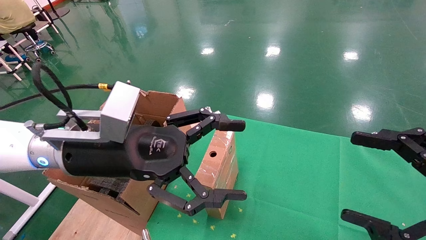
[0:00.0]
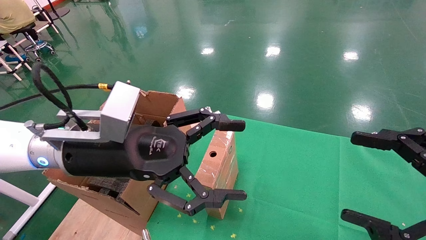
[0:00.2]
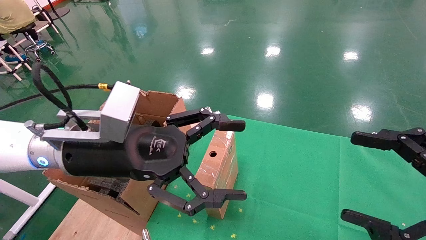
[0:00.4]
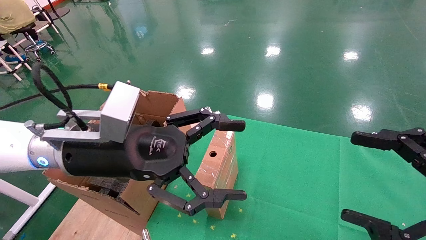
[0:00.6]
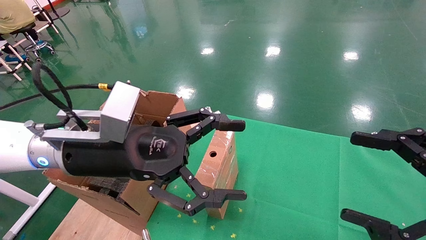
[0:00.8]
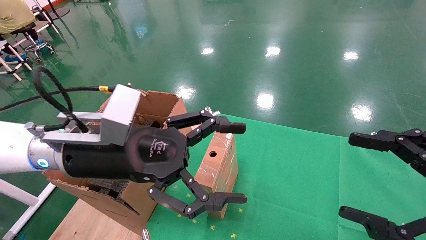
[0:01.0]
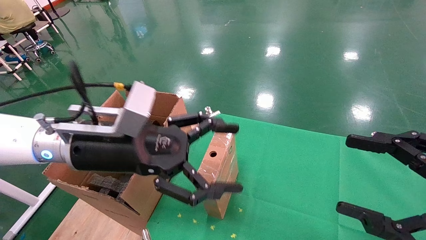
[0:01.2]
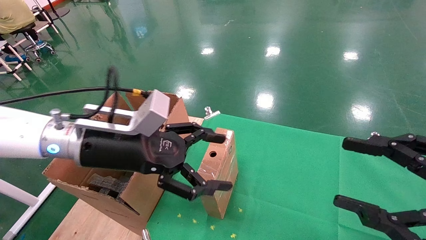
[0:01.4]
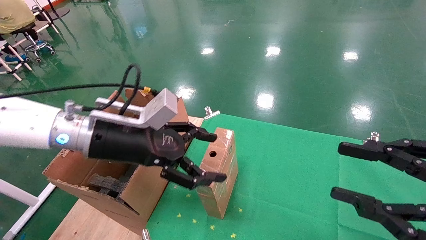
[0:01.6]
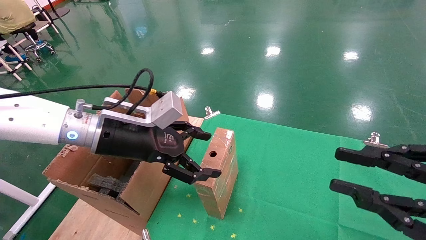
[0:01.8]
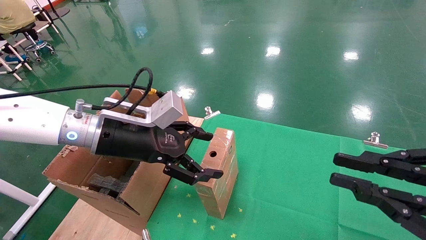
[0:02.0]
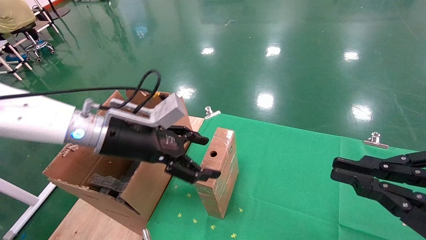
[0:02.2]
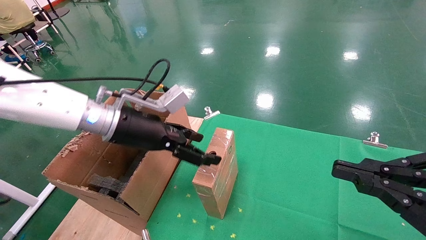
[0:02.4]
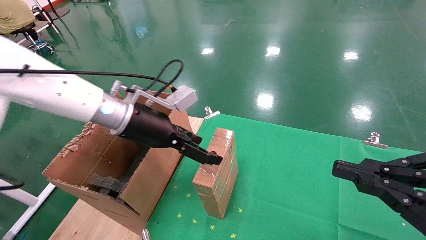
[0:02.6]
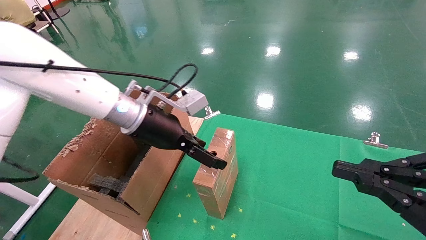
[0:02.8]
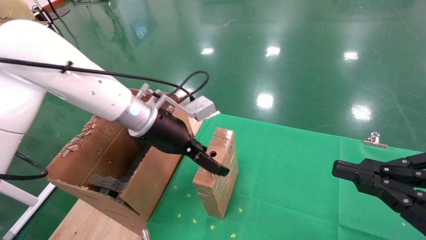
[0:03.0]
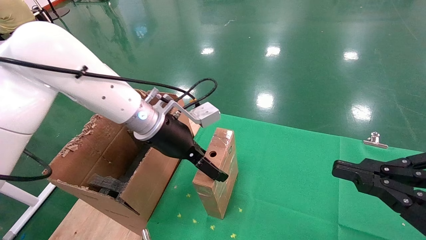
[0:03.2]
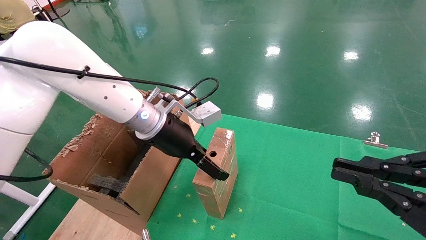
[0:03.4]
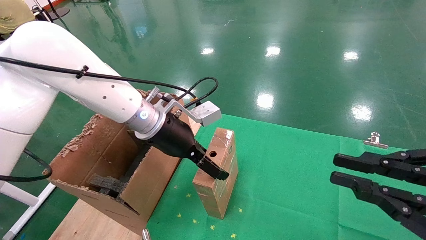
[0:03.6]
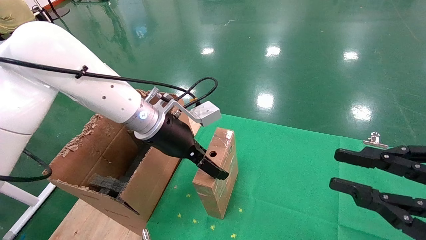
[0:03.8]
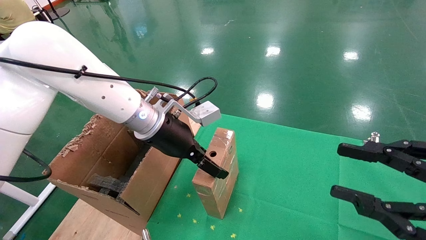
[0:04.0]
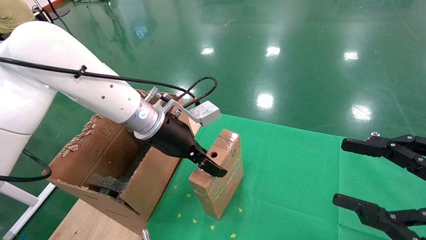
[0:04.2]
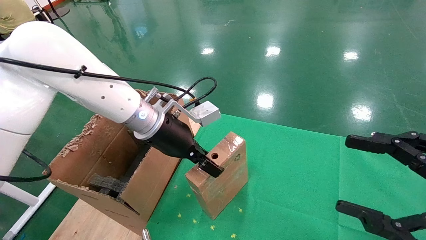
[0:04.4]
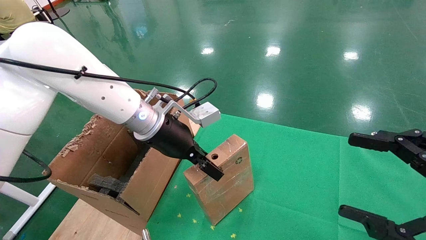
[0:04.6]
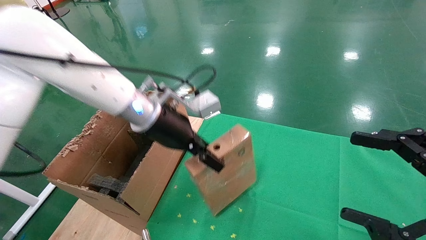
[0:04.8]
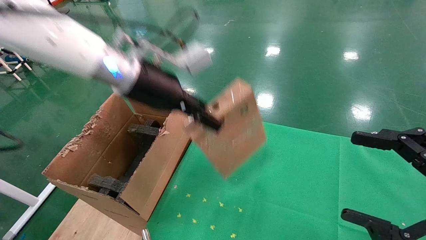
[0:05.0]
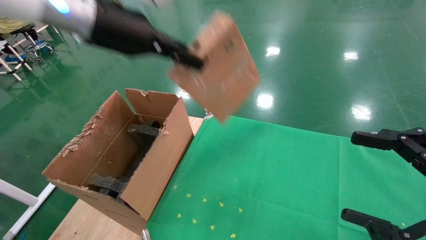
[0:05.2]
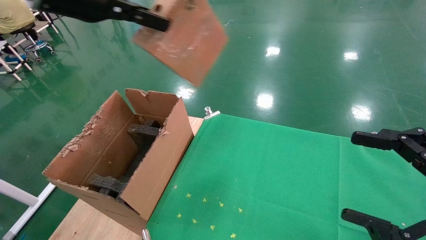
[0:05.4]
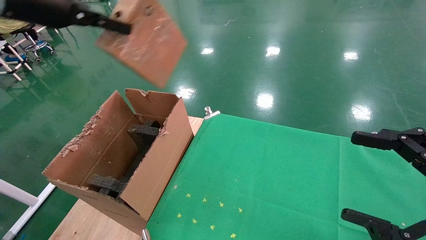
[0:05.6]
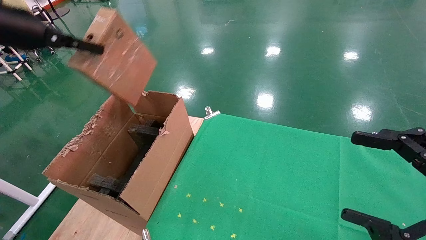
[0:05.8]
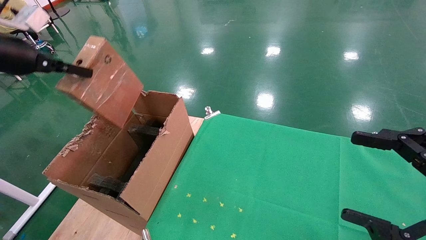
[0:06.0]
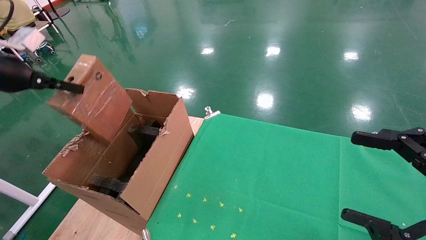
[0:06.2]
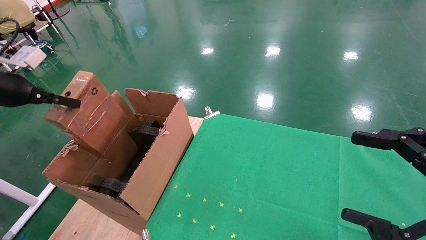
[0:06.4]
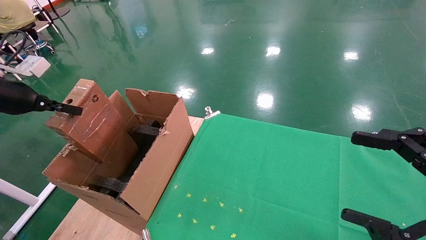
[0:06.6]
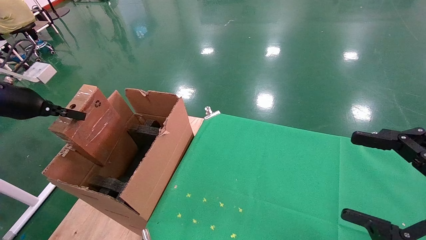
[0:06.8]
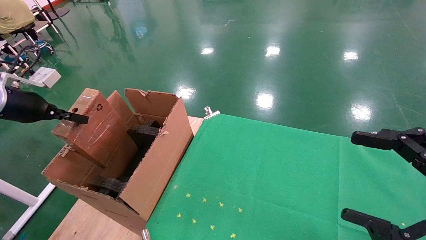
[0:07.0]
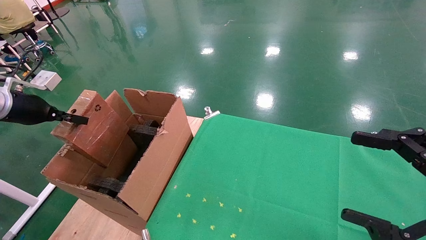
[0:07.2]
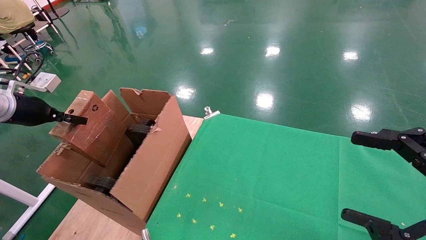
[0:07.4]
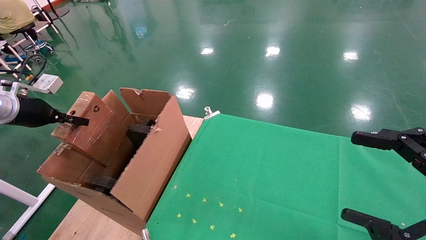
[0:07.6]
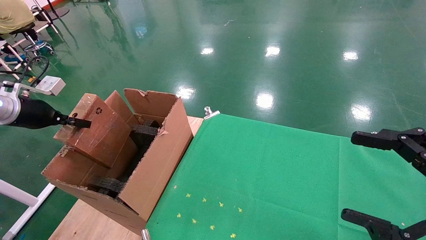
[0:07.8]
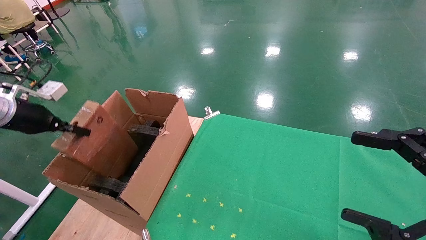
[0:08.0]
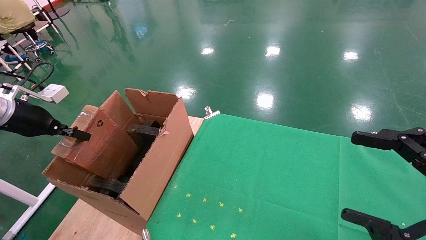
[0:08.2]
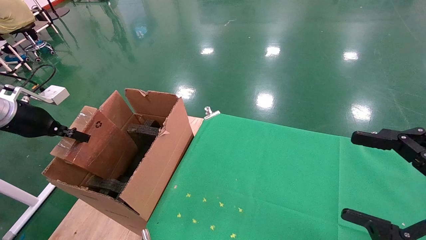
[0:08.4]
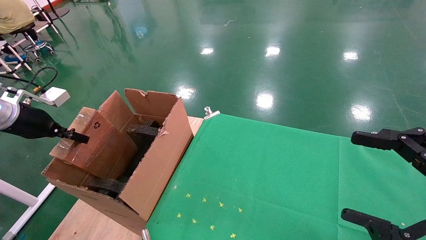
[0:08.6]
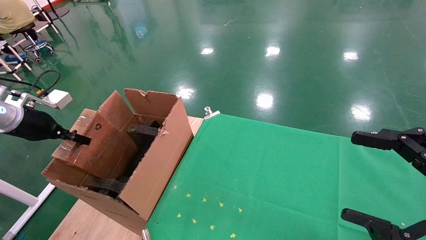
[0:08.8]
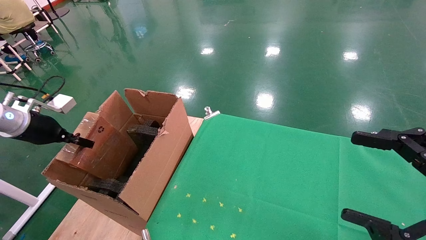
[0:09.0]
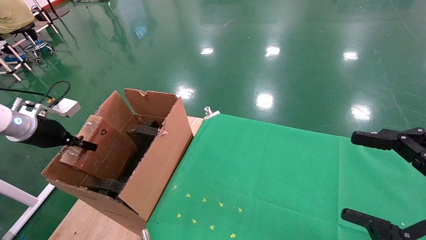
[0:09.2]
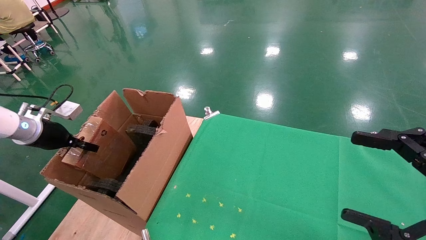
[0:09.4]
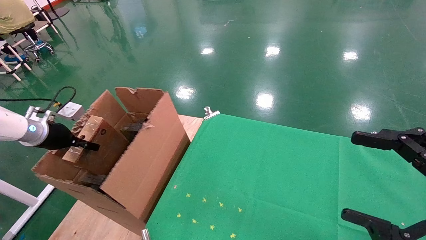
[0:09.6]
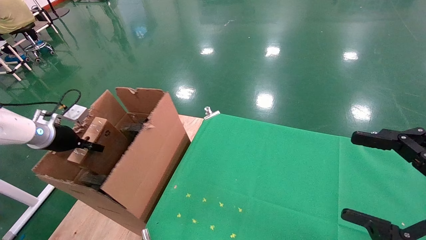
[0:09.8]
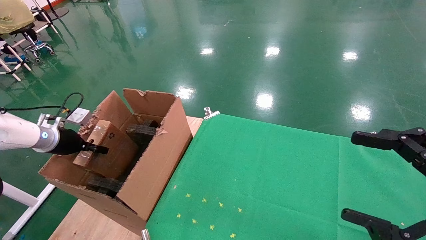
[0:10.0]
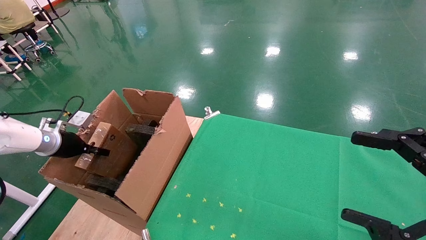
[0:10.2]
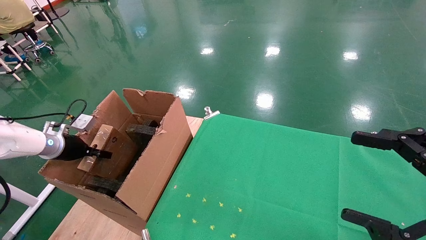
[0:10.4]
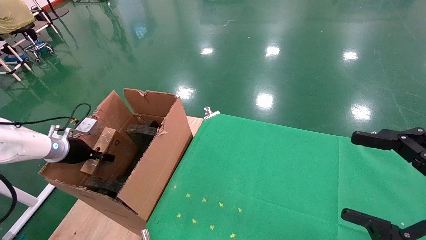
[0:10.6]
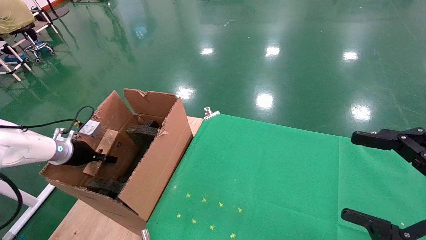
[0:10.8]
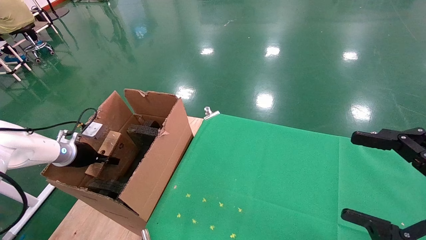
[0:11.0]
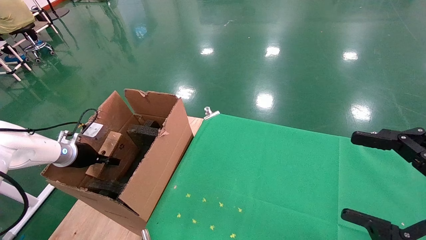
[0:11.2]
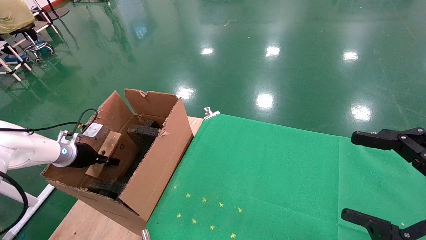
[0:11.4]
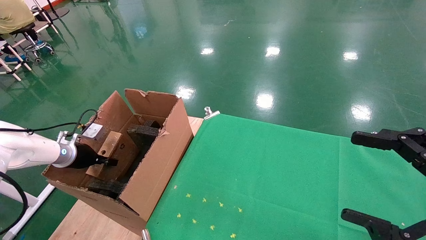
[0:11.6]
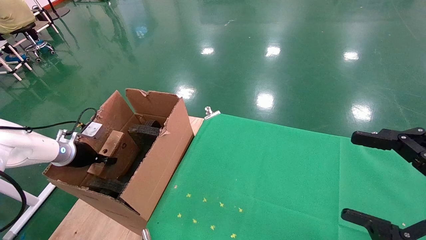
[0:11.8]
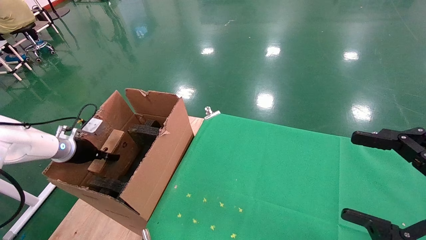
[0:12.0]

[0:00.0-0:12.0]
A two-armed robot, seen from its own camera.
Task of the whole recording: using a robotic arm to pick up a cardboard box and palace it the carton.
Step, 0:01.0 to 0:04.2: Pick up the mouse and the power cord paper box.
0:00.0 to 0:01.6: The right gripper closes its fingers.
0:01.6 to 0:03.0: The right gripper closes up; the left gripper heads forward, covering some 10 cm.
0:03.0 to 0:04.4: The left gripper closes up; the right gripper opens its fingers.
0:04.4 to 0:06.0: The left gripper travels to the left and upward by approximately 35 cm, and closes up.
0:06.0 to 0:07.6: The left gripper is displaced downward and to the left by approximately 15 cm.
0:07.6 to 0:09.0: There are only small adjustments of the grippers.
0:09.0 to 0:10.4: The left gripper heads downward and forward, covering approximately 10 cm.
0:10.4 to 0:12.0: The left gripper opens up.

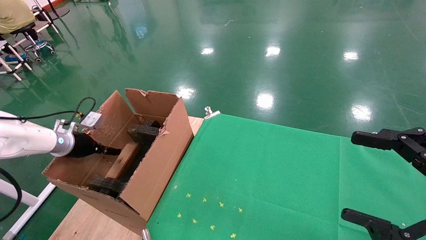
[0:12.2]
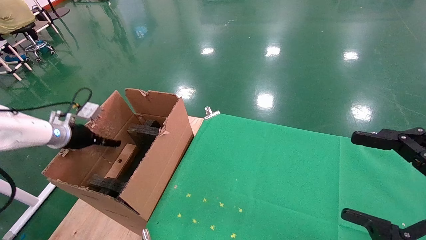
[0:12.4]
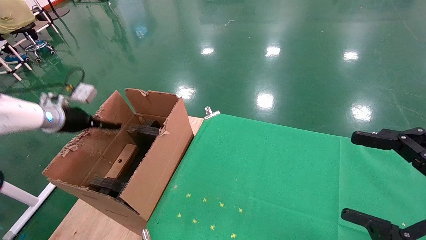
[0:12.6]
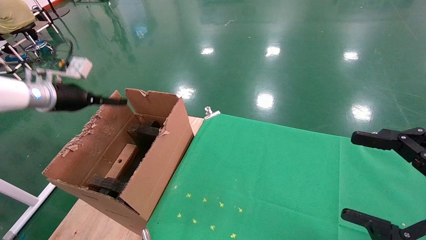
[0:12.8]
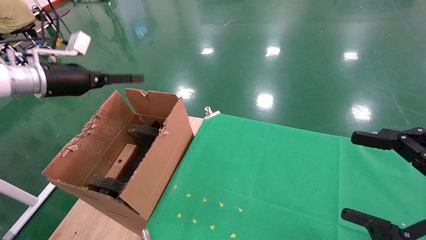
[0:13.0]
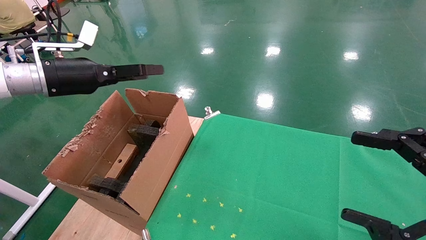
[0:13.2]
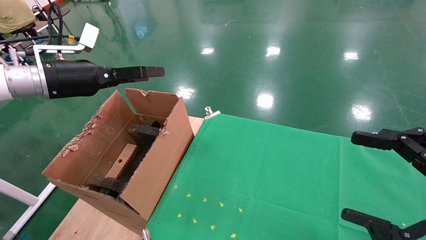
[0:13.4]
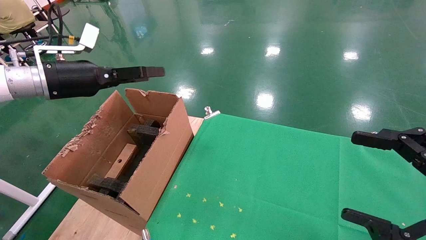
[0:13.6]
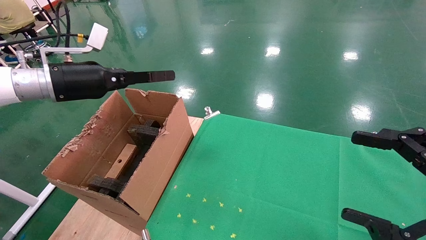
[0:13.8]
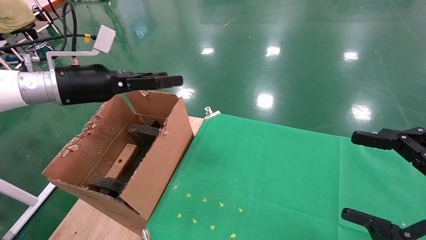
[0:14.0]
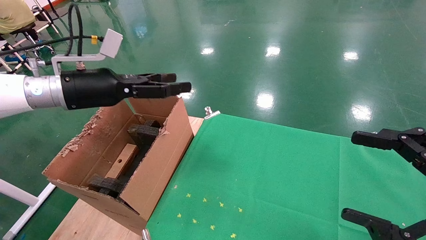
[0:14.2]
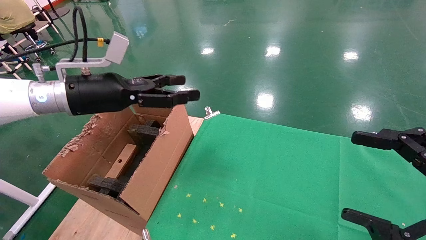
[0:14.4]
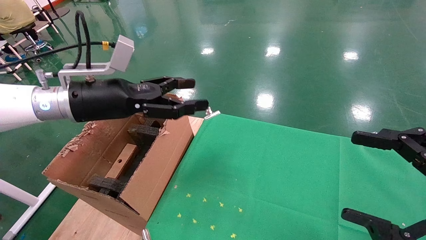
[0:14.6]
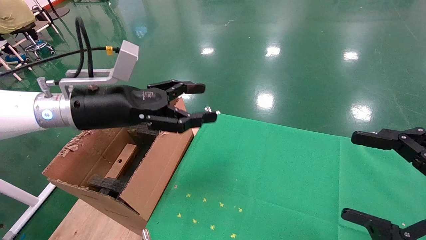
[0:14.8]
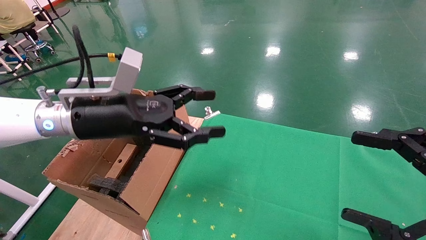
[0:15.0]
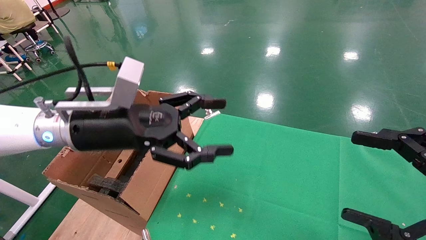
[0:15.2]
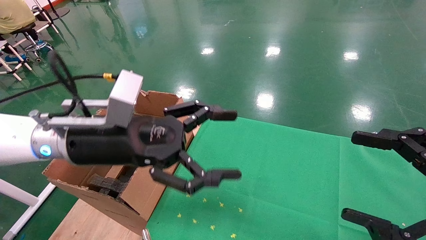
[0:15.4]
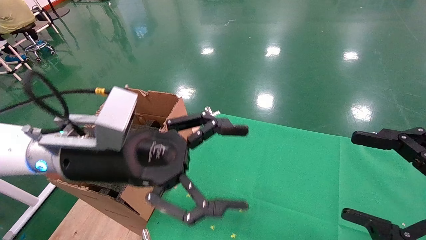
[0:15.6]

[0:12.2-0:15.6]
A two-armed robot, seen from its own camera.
Task of the whole recording: using a robotic arm to pick up a cardboard box and palace it the carton.
0:12.2 to 0:13.8: The left gripper moves upward and to the right, roughly 20 cm, and opens its fingers.
0:13.8 to 0:15.6: The left gripper is displaced to the right and backward by about 20 cm.
